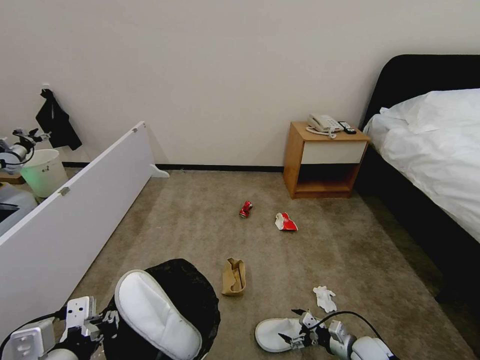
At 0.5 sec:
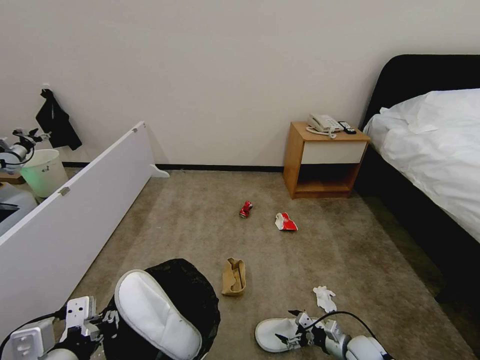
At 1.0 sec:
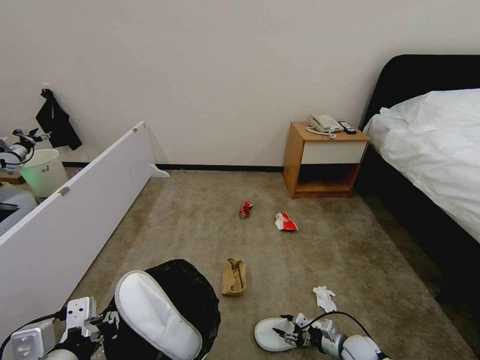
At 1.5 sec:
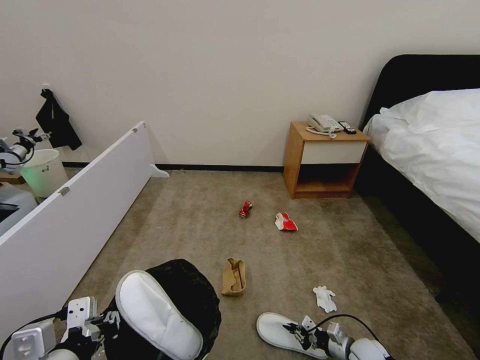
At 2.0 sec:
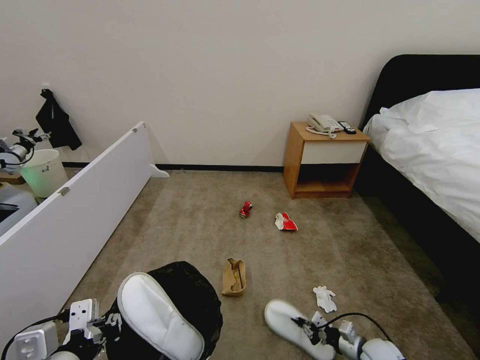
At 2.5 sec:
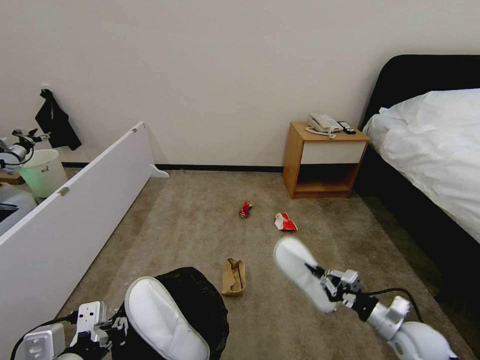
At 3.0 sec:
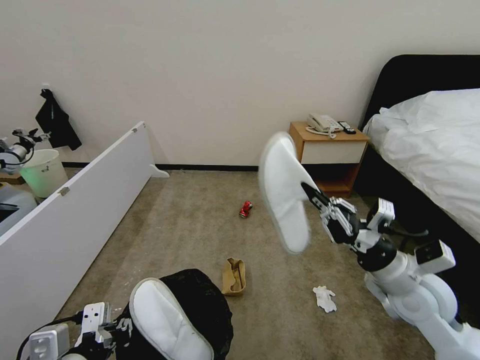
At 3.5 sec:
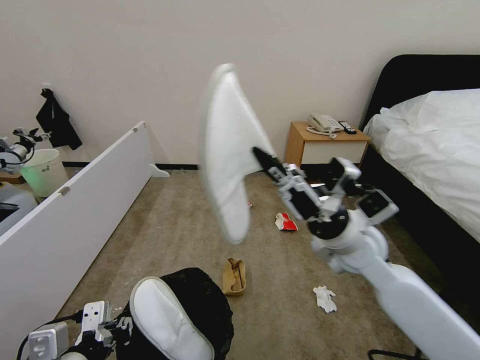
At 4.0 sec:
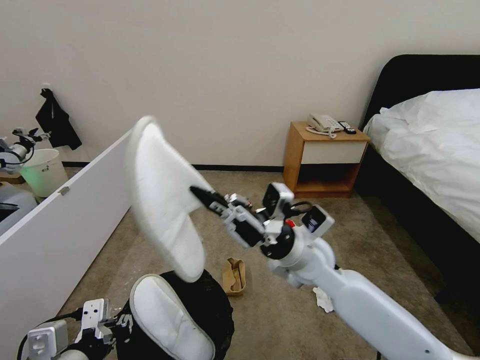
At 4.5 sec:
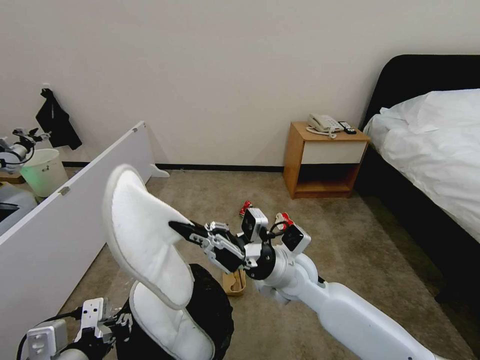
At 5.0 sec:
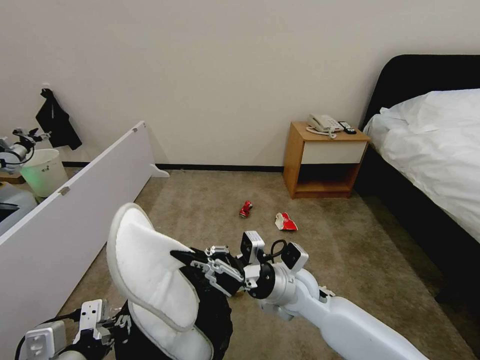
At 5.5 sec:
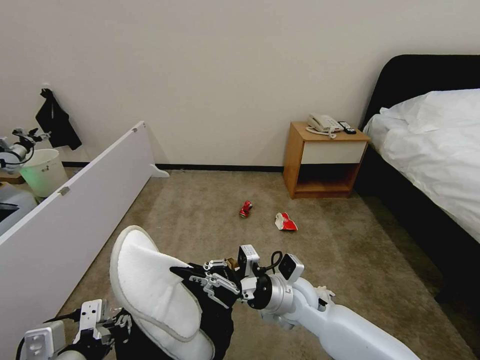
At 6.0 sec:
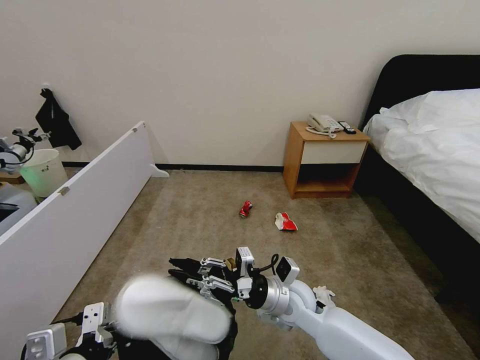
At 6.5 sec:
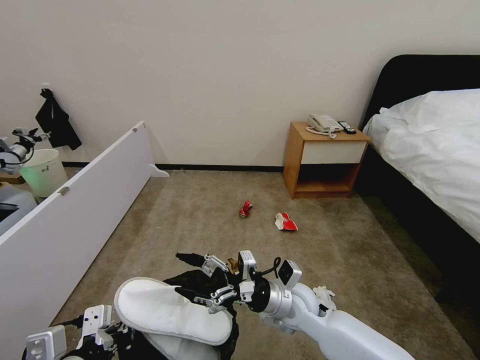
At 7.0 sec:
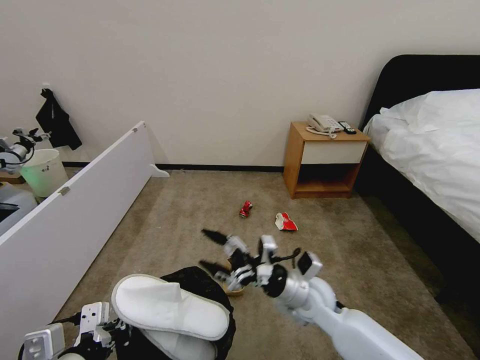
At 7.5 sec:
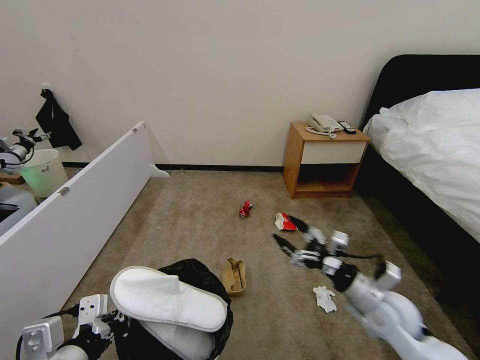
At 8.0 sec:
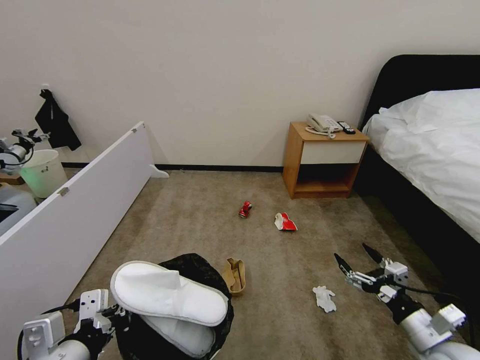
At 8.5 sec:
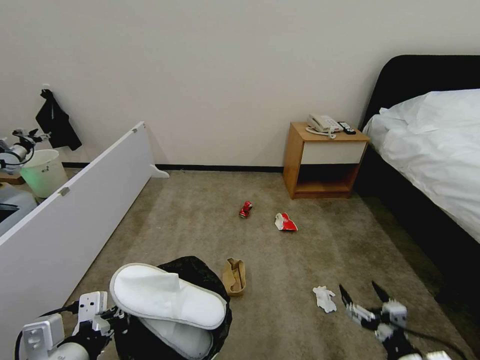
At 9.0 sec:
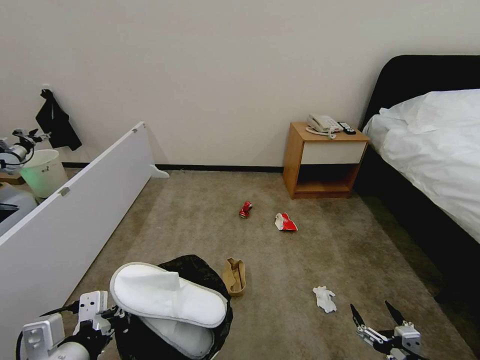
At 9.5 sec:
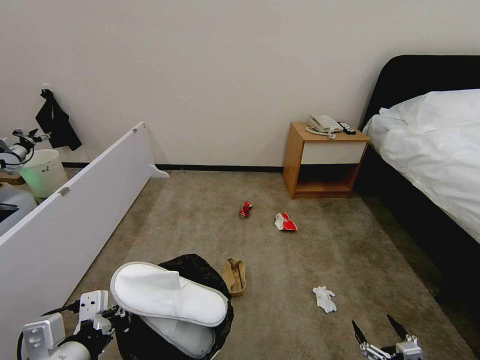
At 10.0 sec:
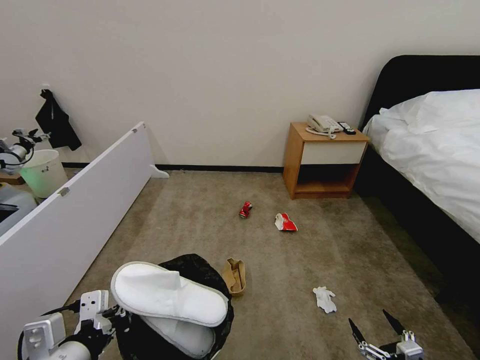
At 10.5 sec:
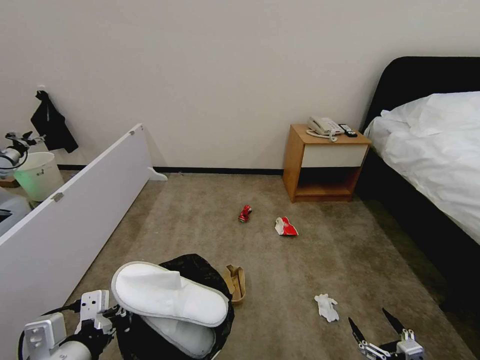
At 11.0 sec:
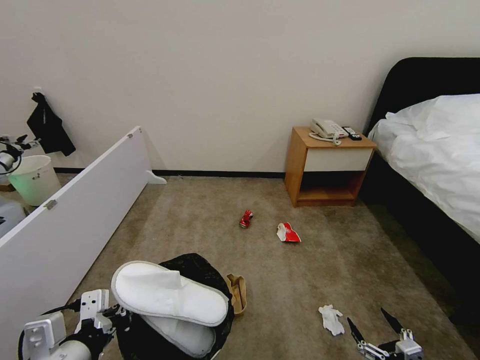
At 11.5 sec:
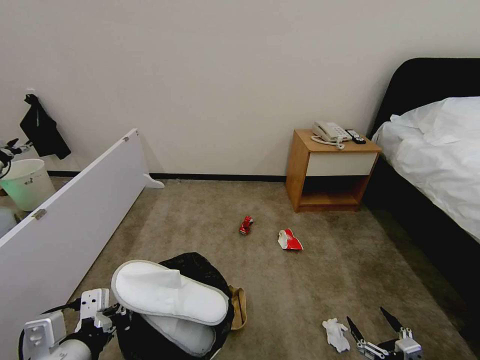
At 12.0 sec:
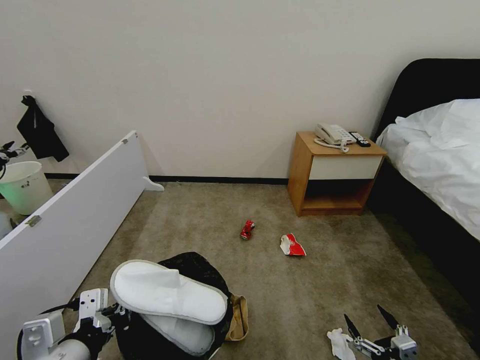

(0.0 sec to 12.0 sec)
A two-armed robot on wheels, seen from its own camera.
Task of the whole recording: Pick up the trash bin, then pick up the garbage from the floor and place it into the trash bin.
0.0 sec - 2.0 sec: The right gripper closes.
2.0 sec - 4.0 sec: The right gripper travels upward and to the left by approximately 40 cm.
4.0 sec - 6.0 sec: The right gripper heads downward, covering approximately 15 cm.
6.0 sec - 8.0 sec: The right gripper shifts about 30 cm to the right and backward, and opens up.
8.0 sec - 10.0 sec: The right gripper travels backward and downward by some 15 cm.
10.0 sec - 12.0 sec: The two grippers keep their place.

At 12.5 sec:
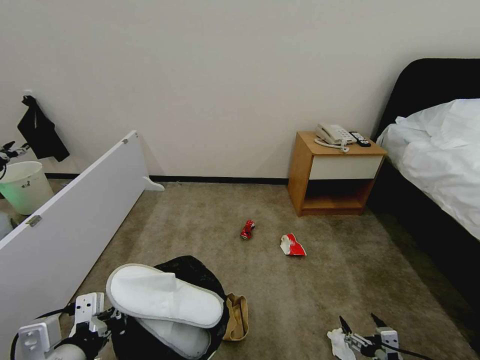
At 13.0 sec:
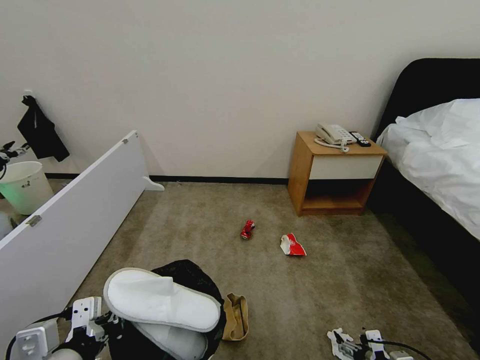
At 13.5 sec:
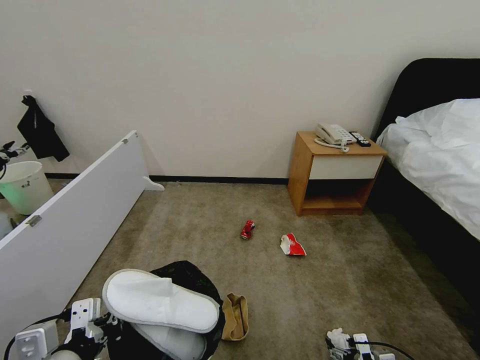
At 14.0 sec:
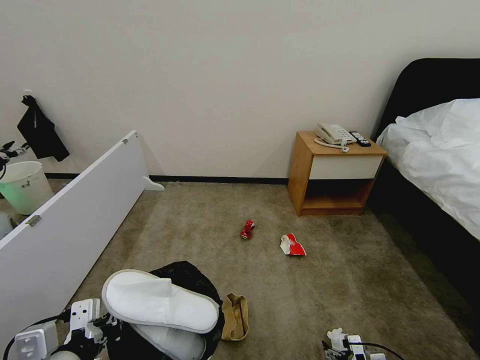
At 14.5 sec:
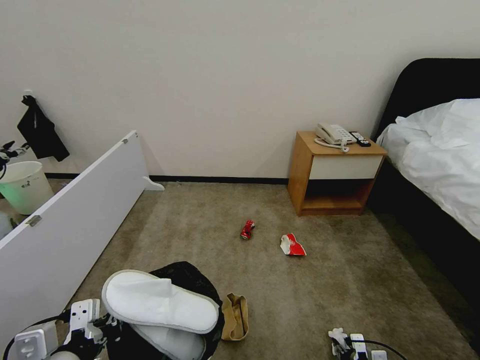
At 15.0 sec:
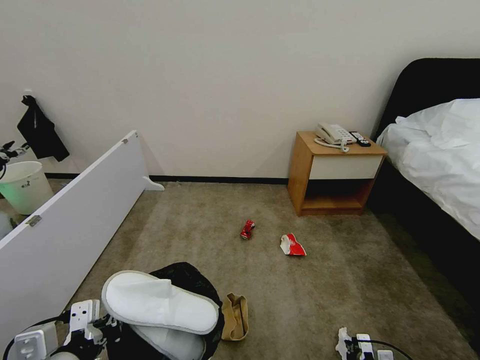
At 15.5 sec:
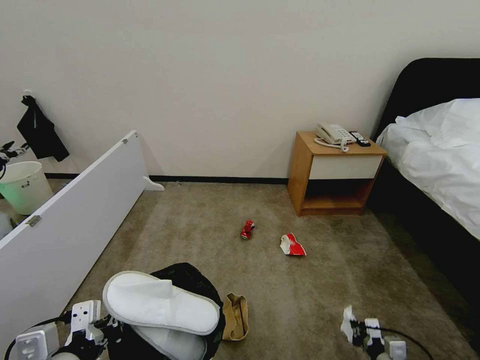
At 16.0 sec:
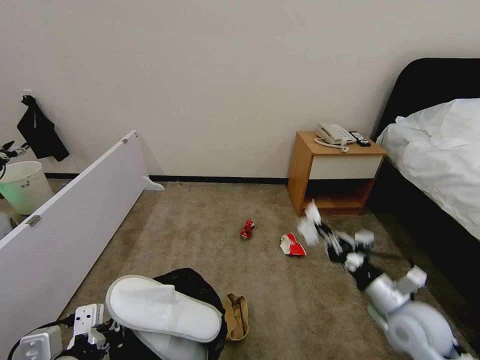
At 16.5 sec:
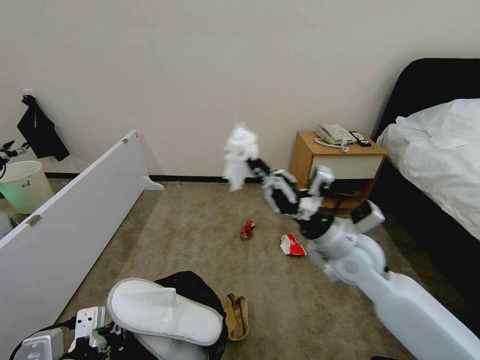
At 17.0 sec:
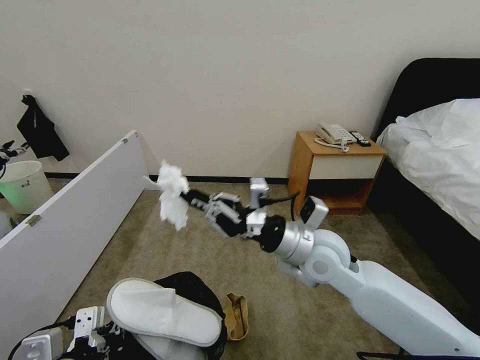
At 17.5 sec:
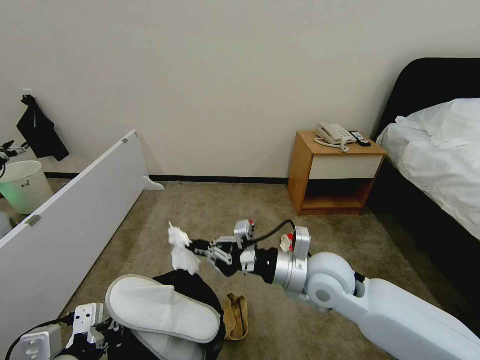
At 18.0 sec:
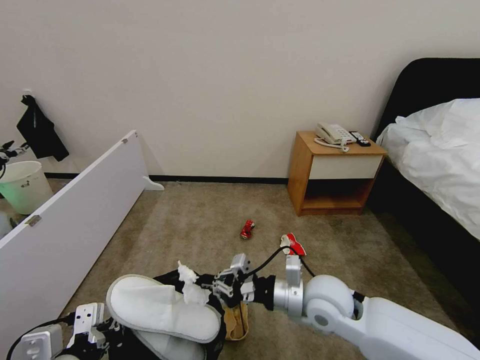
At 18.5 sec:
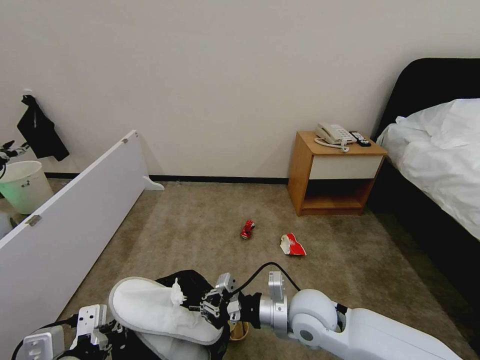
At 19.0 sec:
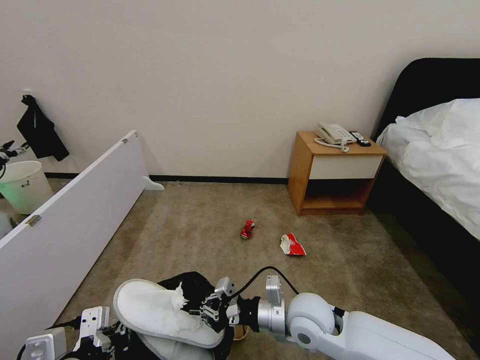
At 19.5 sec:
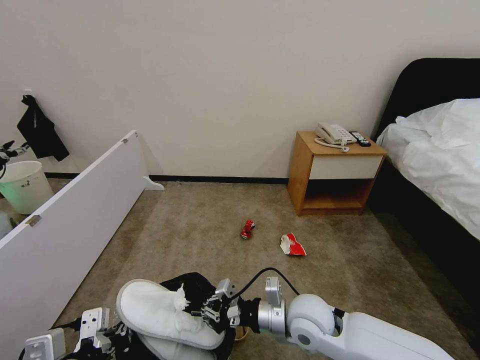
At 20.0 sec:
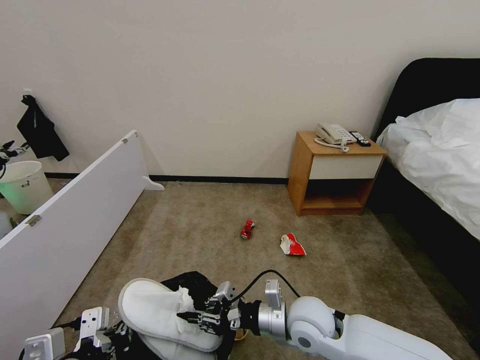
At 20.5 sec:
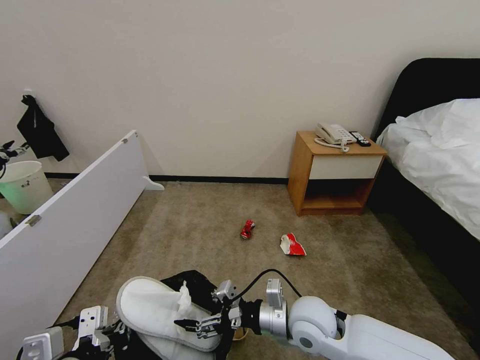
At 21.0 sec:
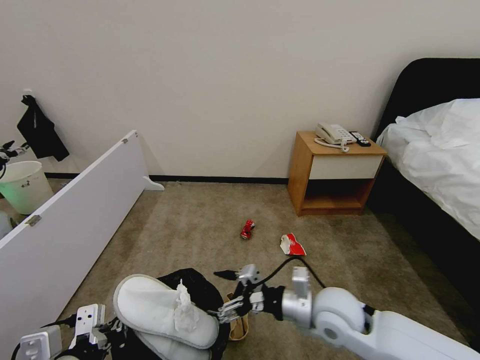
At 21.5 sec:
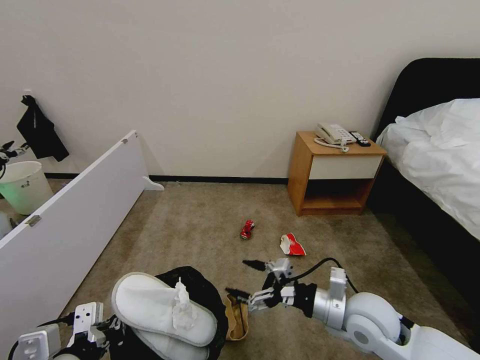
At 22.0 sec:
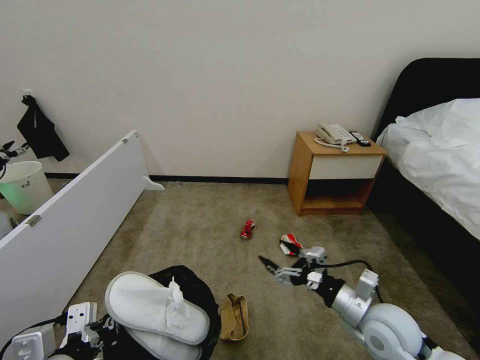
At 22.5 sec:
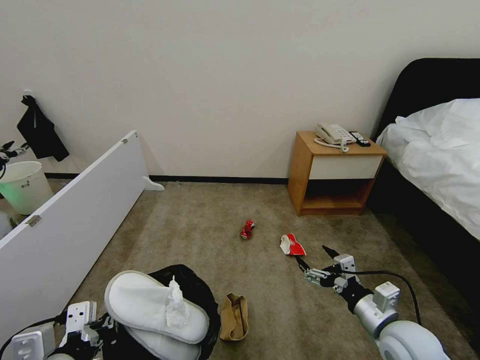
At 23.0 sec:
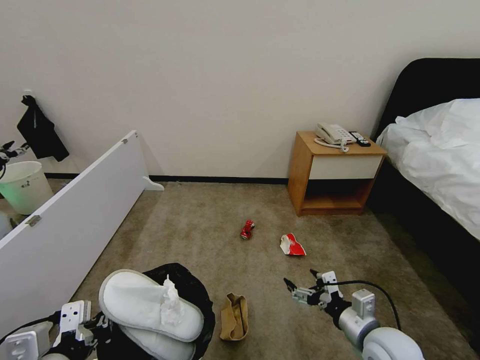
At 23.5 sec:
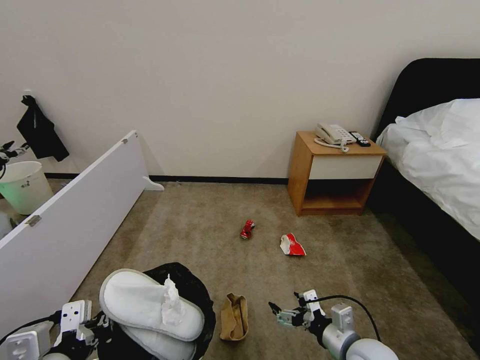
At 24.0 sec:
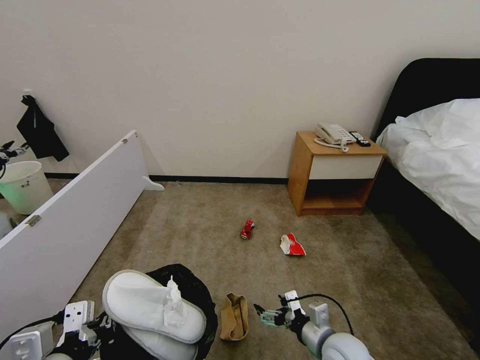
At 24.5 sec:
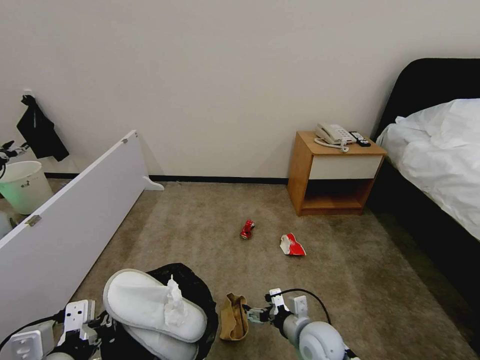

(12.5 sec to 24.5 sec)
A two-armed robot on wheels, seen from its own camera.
Task of the whole recording: Pick up the trash bin, then pick up the garbage from the floor and place it into the trash bin.
12.5 sec - 14.5 sec: The right gripper shifts approximately 15 cm downward and forward, and closes up.
14.5 sec - 16.5 sec: The right gripper heads upward, forward and to the left, covering about 40 cm, and closes up.
16.5 sec - 18.5 sec: The right gripper heads downward, to the left and backward, covering roughly 15 cm.
18.5 sec - 20.5 sec: The right gripper opens up.
20.5 sec - 22.5 sec: The right gripper shifts approximately 20 cm to the right.
22.5 sec - 24.5 sec: The right gripper goes about 15 cm to the left and downward.

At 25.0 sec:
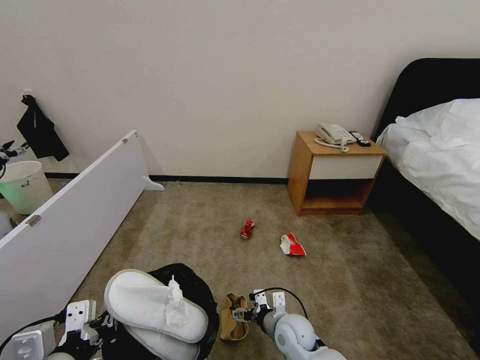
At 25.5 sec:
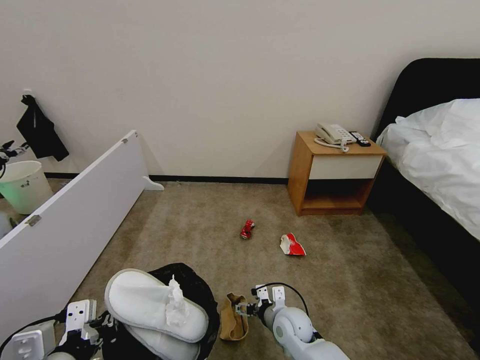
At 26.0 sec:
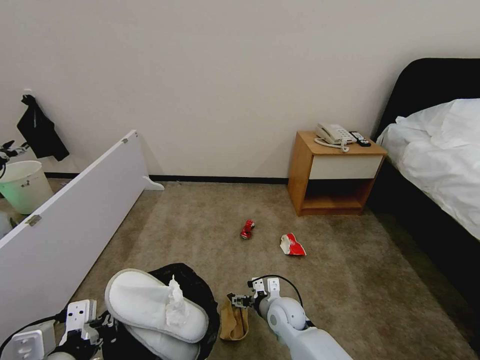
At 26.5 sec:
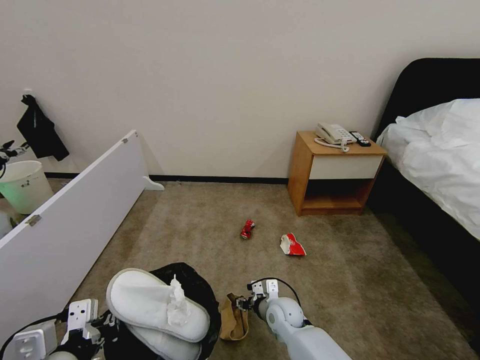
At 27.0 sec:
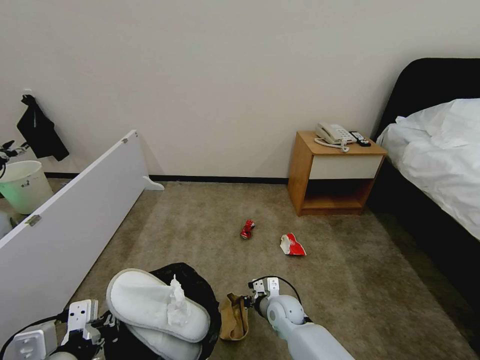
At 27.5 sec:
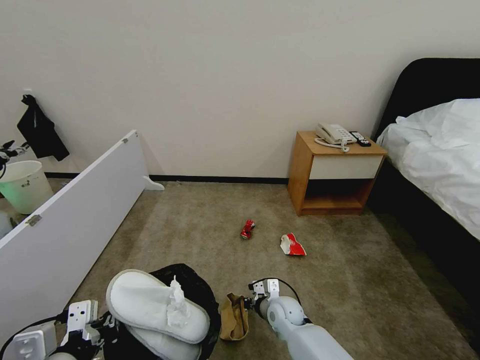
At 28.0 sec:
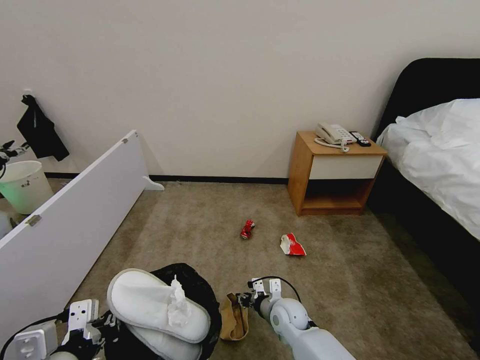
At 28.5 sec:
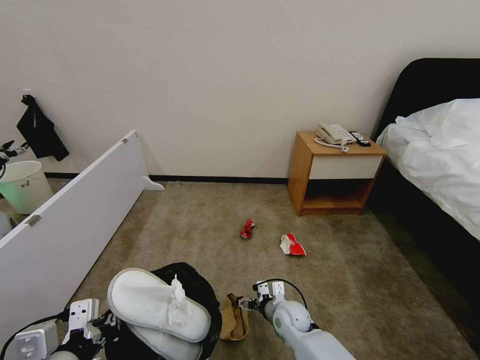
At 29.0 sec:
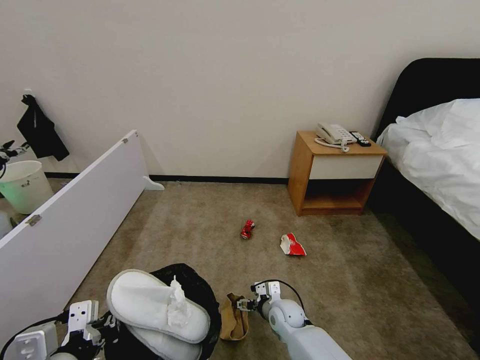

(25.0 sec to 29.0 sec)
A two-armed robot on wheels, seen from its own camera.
Task of the whole recording: Pick up the trash bin, then pick up the garbage from the floor and place it into the trash bin.
25.0 sec - 27.0 sec: The right gripper moves forward, some 5 cm, and closes its fingers.
27.0 sec - 29.0 sec: The right gripper opens up.
